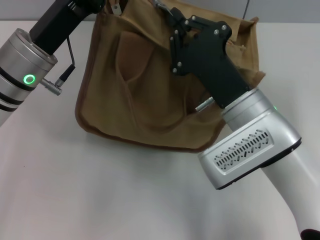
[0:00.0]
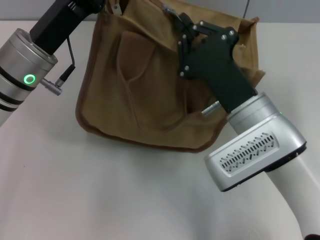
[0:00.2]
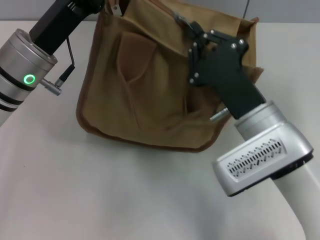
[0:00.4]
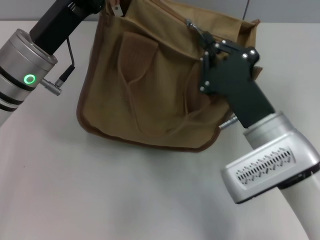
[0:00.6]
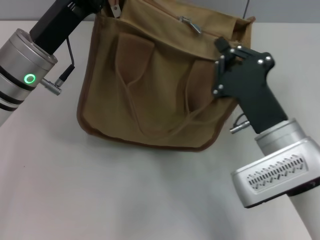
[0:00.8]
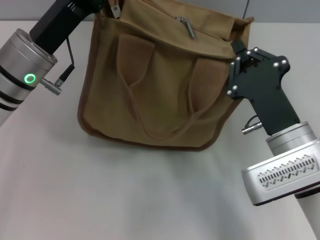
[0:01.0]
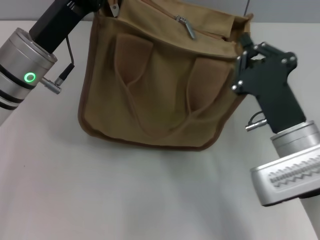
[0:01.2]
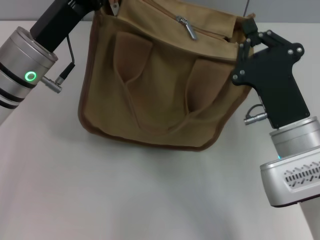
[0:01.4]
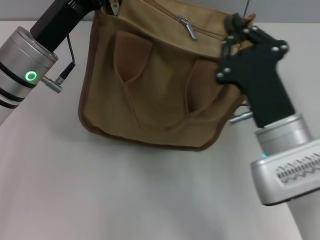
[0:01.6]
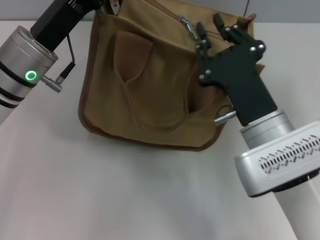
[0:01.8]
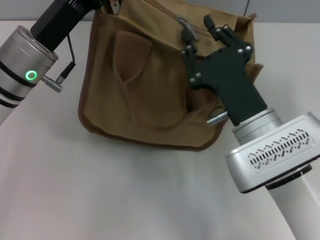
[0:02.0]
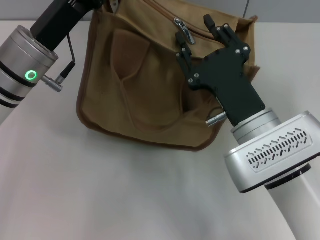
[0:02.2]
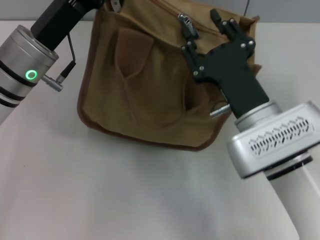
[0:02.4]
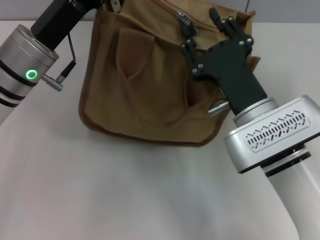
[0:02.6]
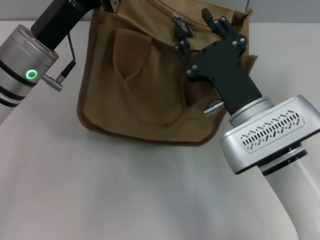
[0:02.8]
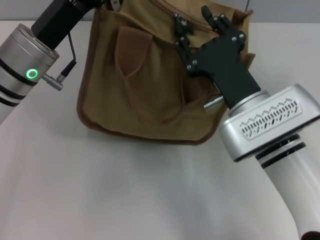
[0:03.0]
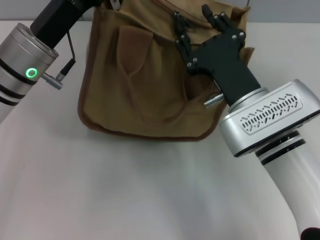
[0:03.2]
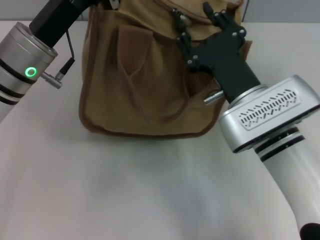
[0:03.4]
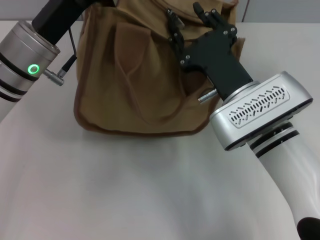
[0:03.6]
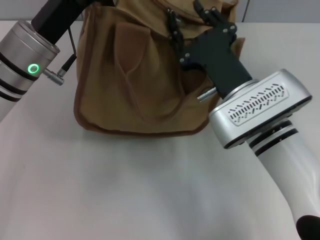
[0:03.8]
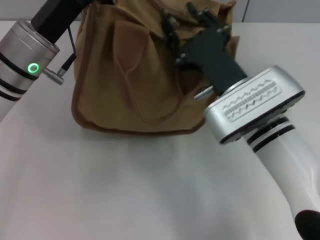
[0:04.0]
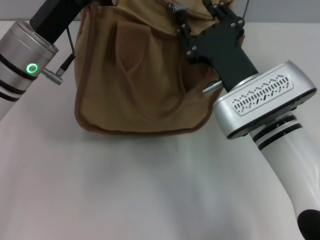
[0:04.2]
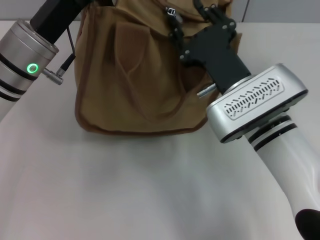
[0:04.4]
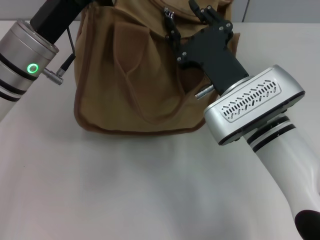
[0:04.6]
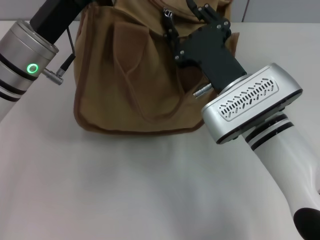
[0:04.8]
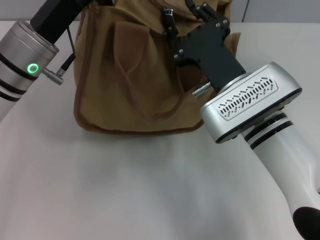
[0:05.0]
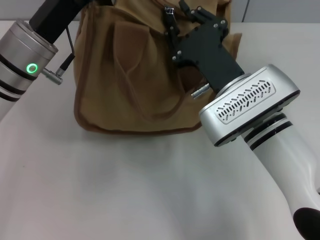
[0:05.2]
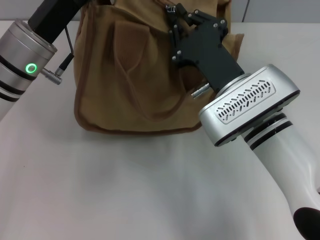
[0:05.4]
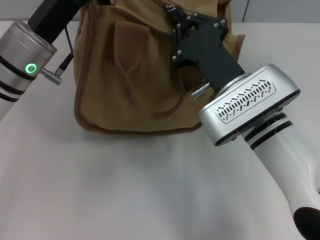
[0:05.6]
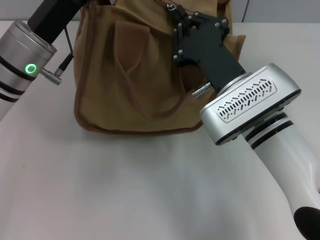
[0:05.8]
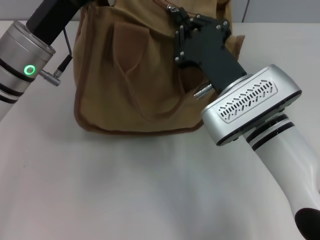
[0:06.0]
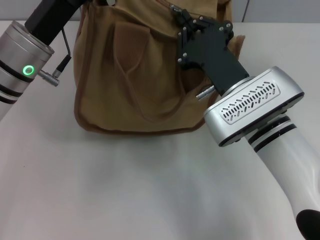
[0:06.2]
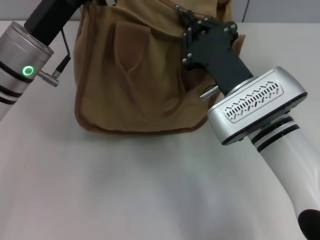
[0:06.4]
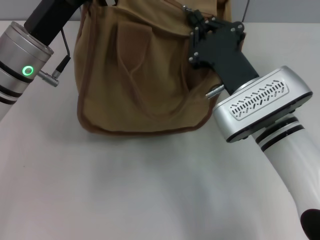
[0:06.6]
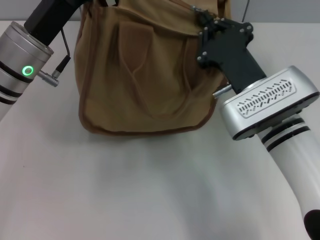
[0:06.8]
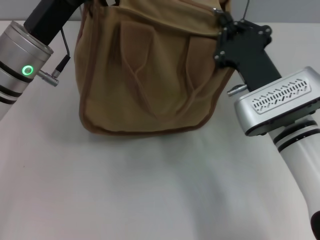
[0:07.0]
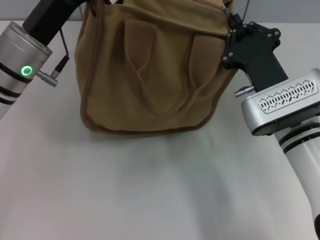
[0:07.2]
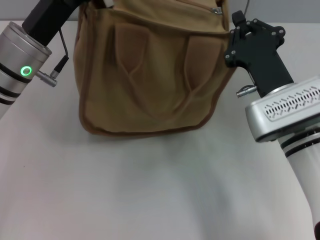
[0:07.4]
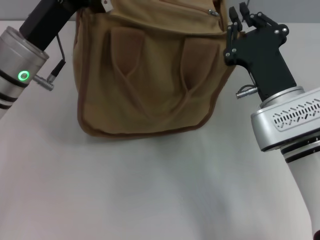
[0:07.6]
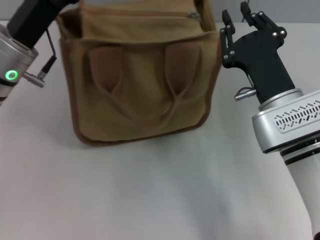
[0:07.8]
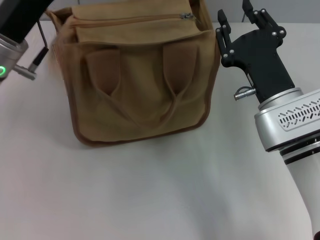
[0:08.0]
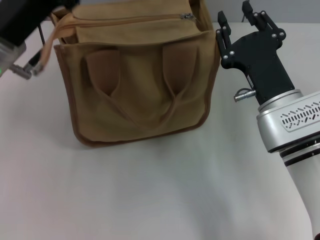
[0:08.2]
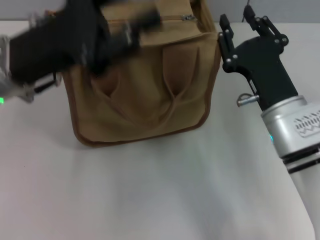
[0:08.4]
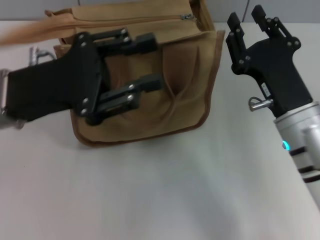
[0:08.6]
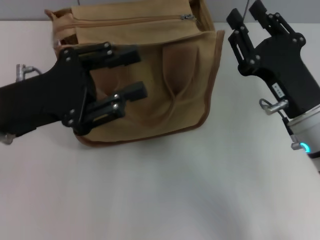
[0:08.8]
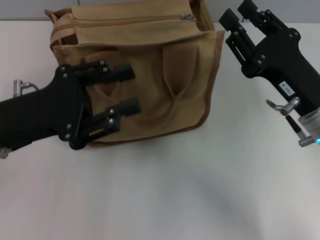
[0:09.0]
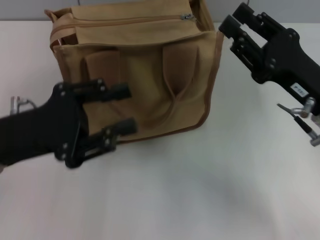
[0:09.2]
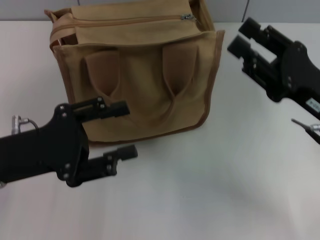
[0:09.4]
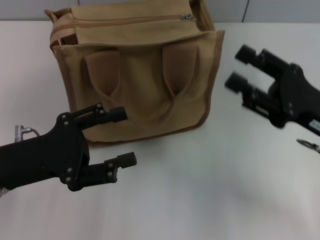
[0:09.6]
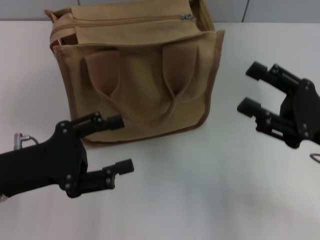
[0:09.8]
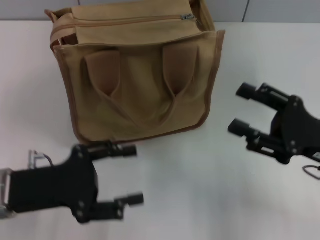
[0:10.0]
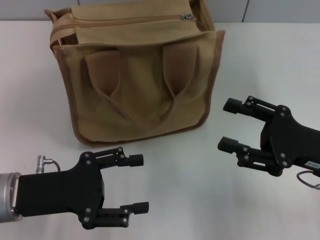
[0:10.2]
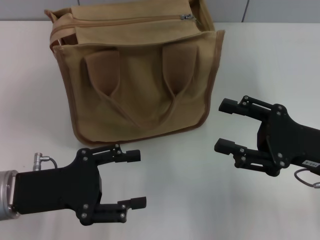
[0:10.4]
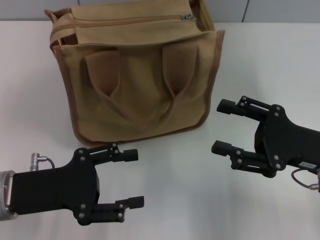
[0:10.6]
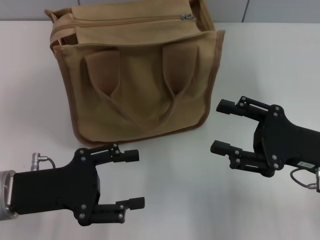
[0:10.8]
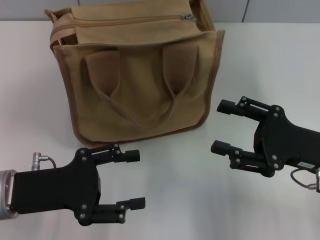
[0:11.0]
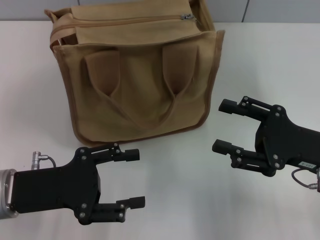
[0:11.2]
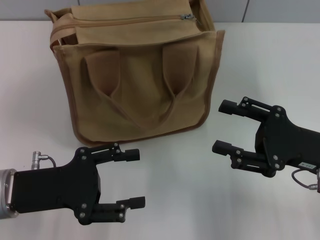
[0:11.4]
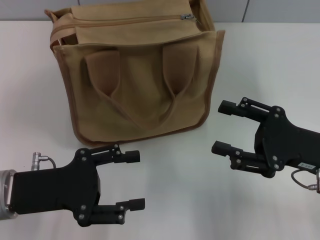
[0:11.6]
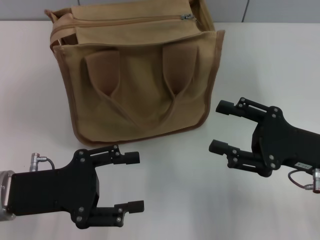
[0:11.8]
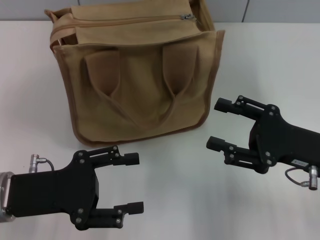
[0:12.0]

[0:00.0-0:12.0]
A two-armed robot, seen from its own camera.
Step, 0:00.0 to 0:07.4: Pull up the zipper with your right hand.
Step, 0:07.6 to 0:07.8: Grab the zipper with your left hand.
0:01.6 to 0:03.0: The right gripper opens its fingers.
0:04.4 to 0:06.0: The right gripper closes its fingers.
0:07.6 to 0:09.0: The left gripper shifts approximately 10 cm backward, and opens up, while the right gripper heads to the right, covering about 5 cm, and opens.
0:09.0 to 0:10.4: The right gripper shifts roughly 5 cm to the right, and opens, while the left gripper is displaced downward by about 5 cm, and opens its fingers.
0:10.4 to 0:12.0: Neither gripper changes place.

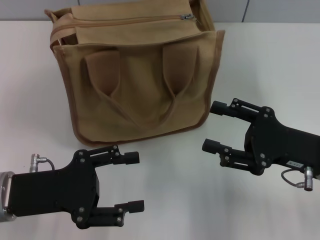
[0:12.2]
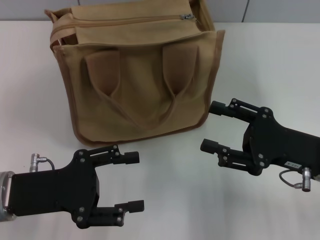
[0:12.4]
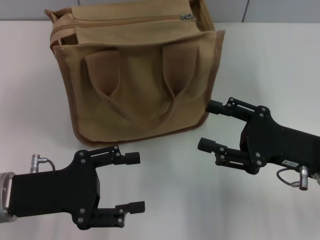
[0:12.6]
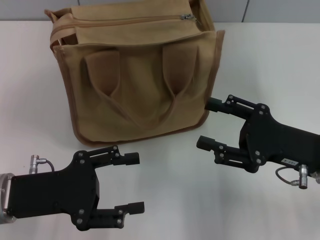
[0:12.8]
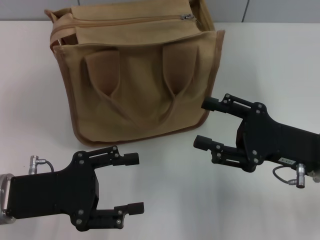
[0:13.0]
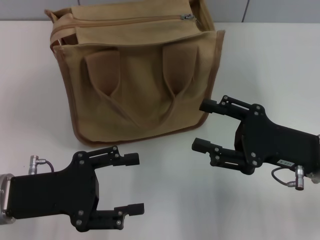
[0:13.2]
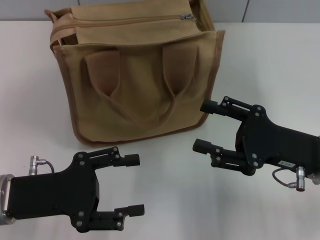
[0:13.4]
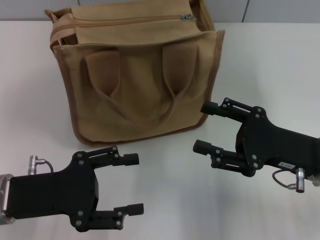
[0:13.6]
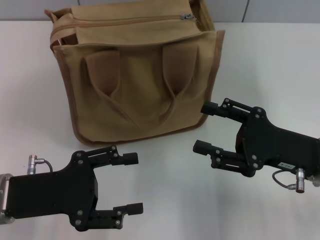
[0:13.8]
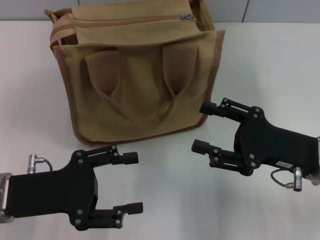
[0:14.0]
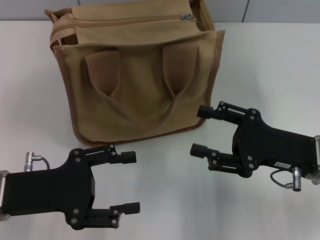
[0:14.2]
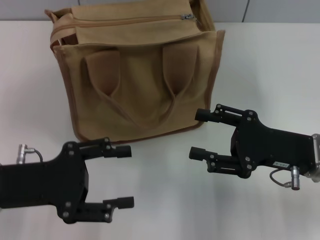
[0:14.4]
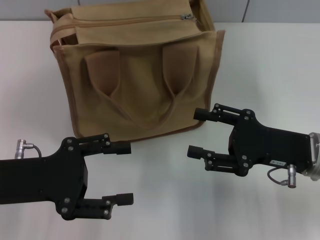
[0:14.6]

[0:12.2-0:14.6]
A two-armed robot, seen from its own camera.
0:12.2 to 0:13.4: Both grippers stay put.
0:13.4 to 0:14.6: The grippers make only small movements.
